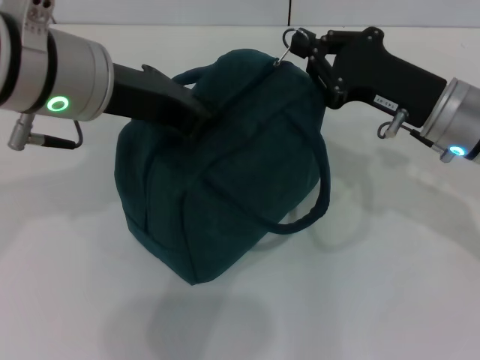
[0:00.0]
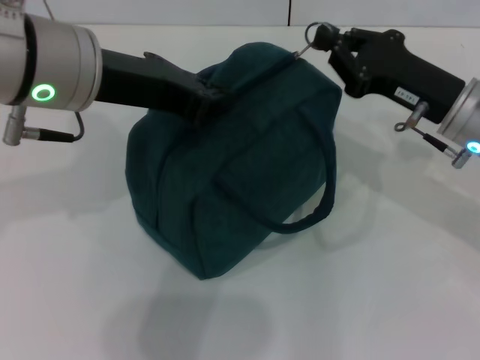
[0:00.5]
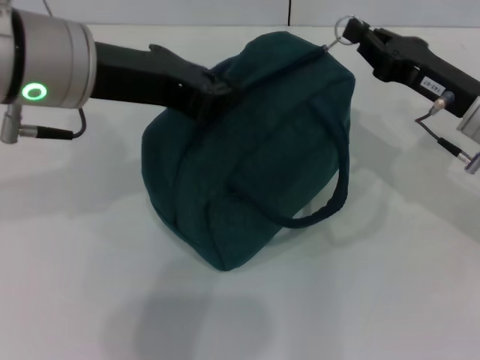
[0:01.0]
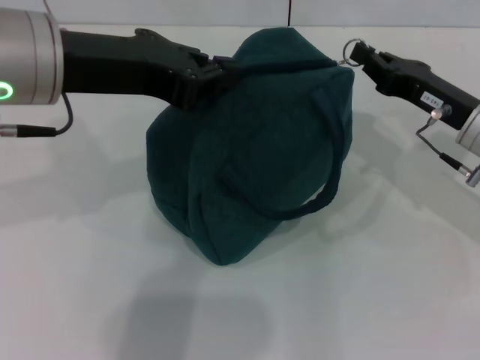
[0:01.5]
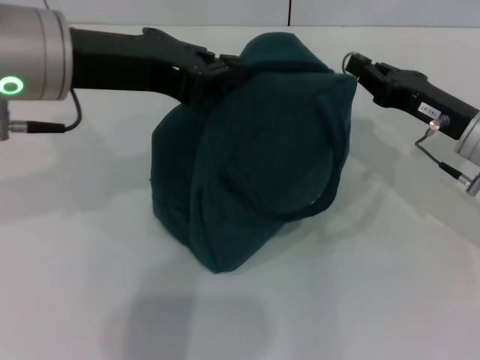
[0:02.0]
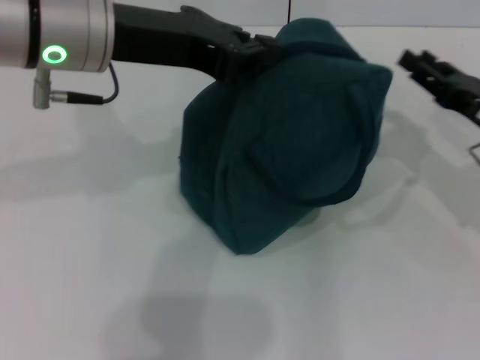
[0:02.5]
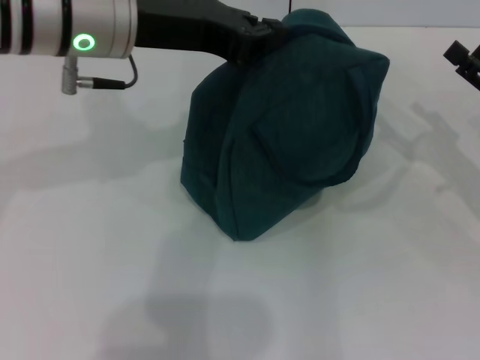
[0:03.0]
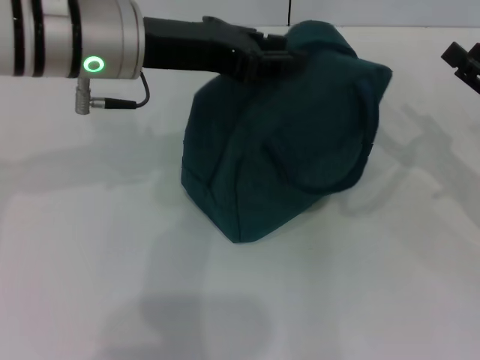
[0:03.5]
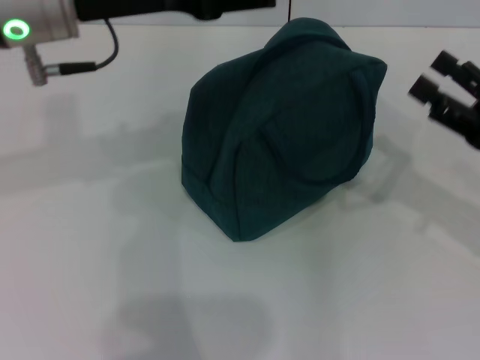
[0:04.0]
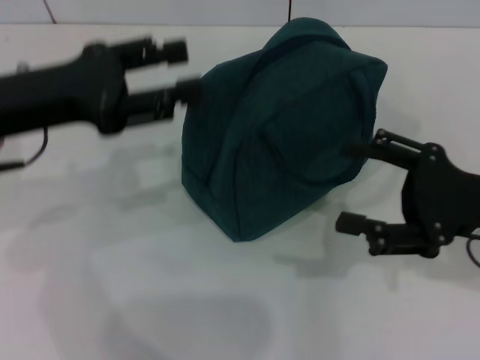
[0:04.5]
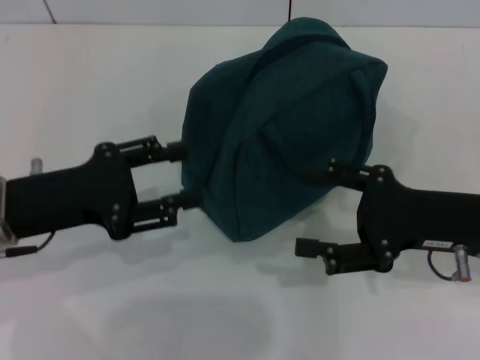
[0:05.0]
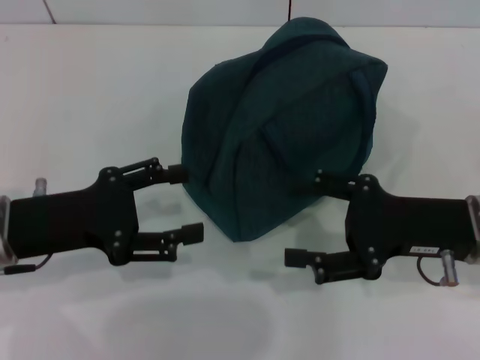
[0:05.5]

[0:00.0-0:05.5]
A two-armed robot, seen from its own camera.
Step, 0:00.0 to 0:02.0: Zip up the lunch bag with your right hand.
Step, 0:02.5 to 0:03.5: Hold the lunch bag with your left hand.
0:00.0 to 0:02.0: The right gripper shifts by some 5 cm.
0:02.0 to 0:03.5: The left gripper changes place by approximately 5 cm, while the right gripper moves to the right, roughly 10 cm, and opens.
0:03.5 to 0:05.5: The left gripper shifts approximately 20 cm downward, to the left and backward, and opens up. The right gripper moves to the left, some 10 cm.
